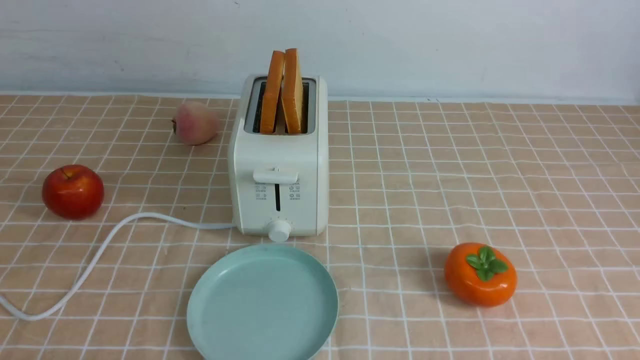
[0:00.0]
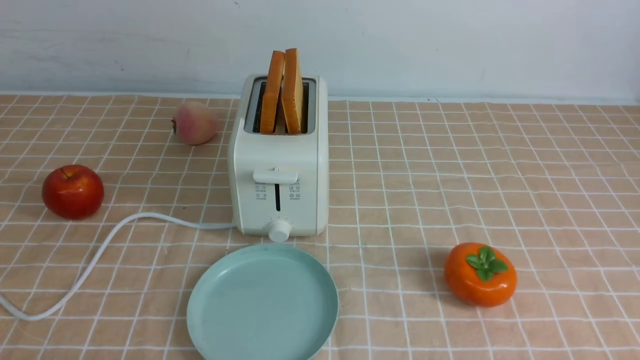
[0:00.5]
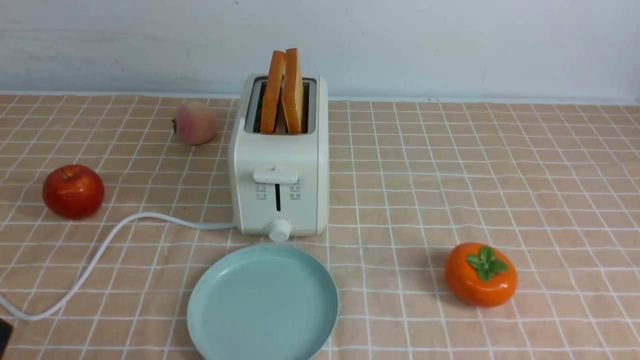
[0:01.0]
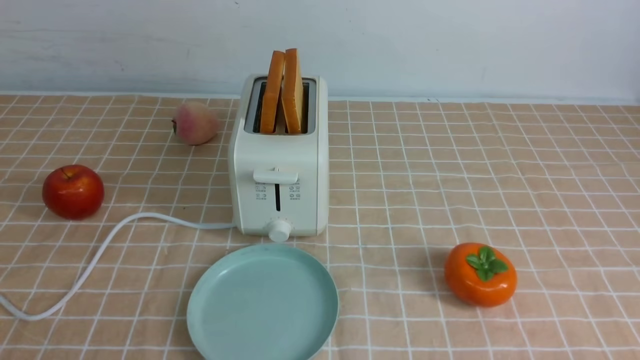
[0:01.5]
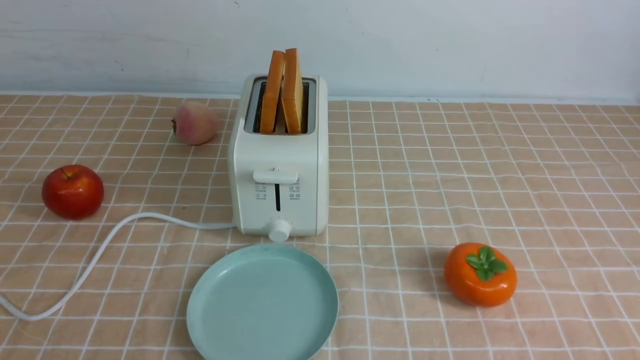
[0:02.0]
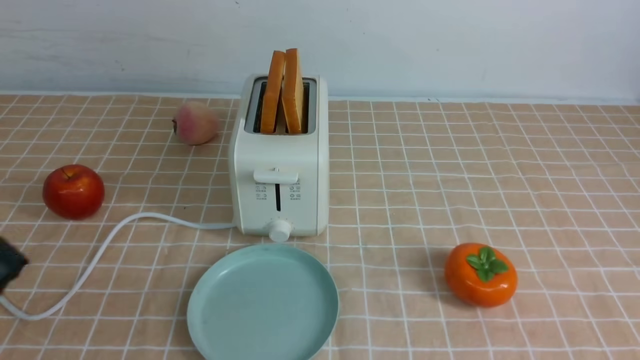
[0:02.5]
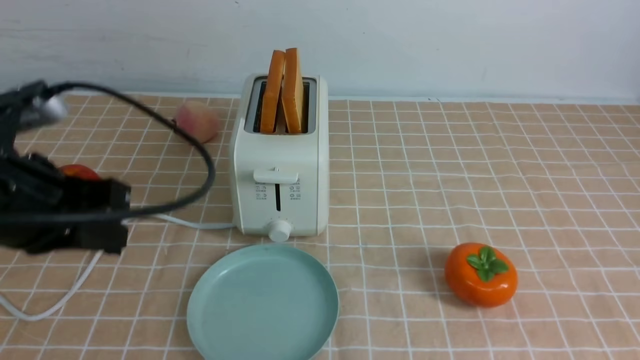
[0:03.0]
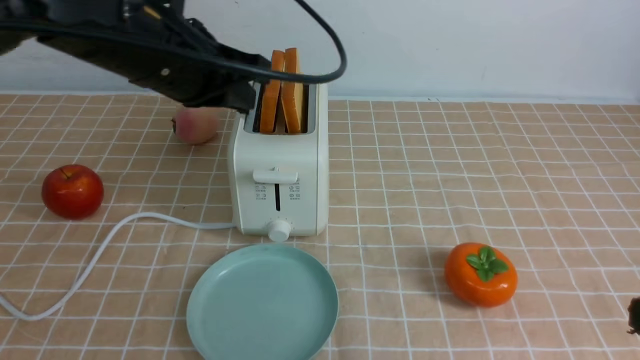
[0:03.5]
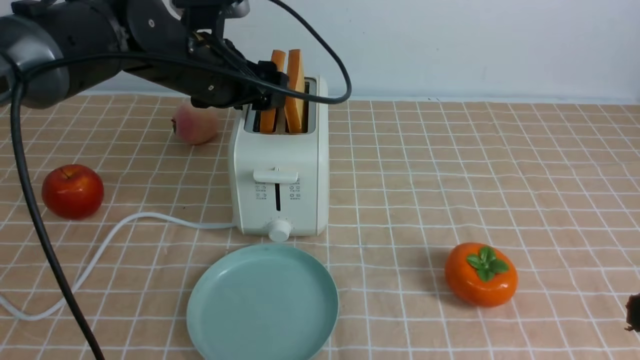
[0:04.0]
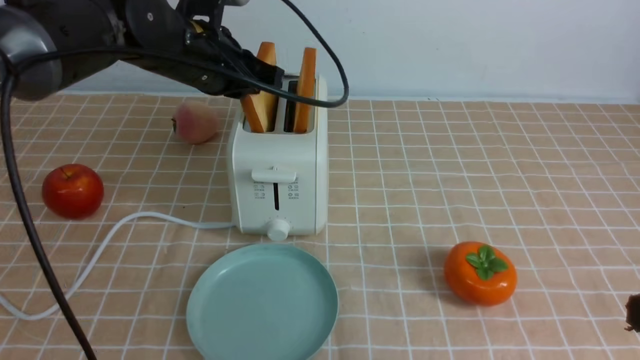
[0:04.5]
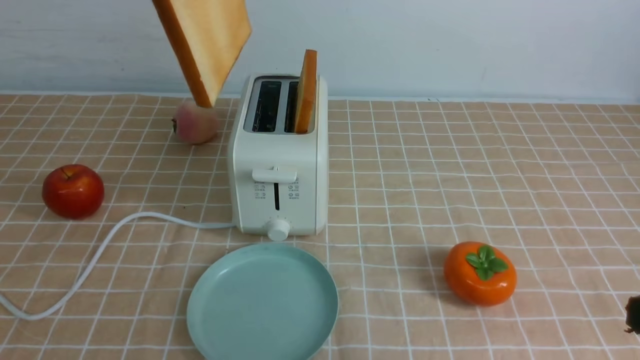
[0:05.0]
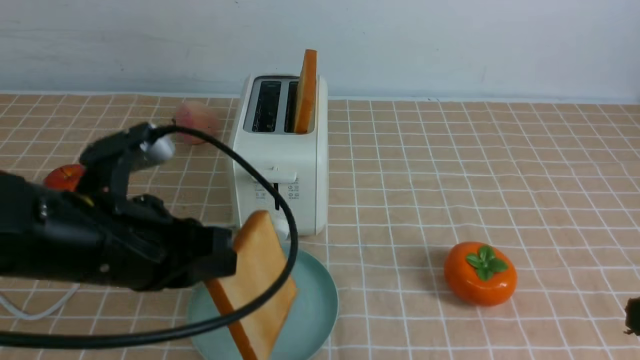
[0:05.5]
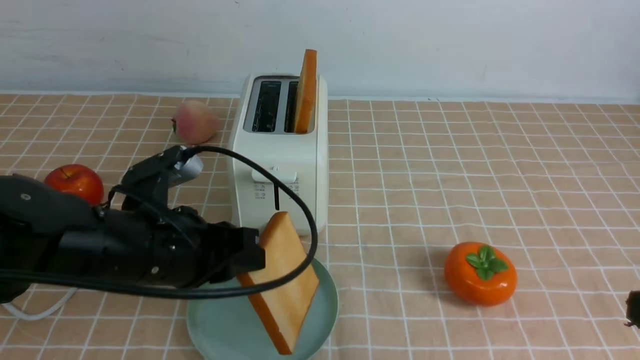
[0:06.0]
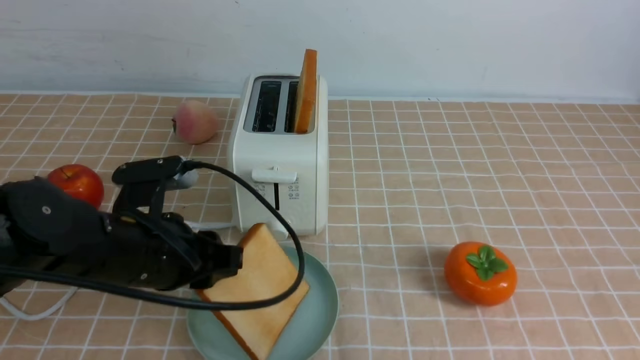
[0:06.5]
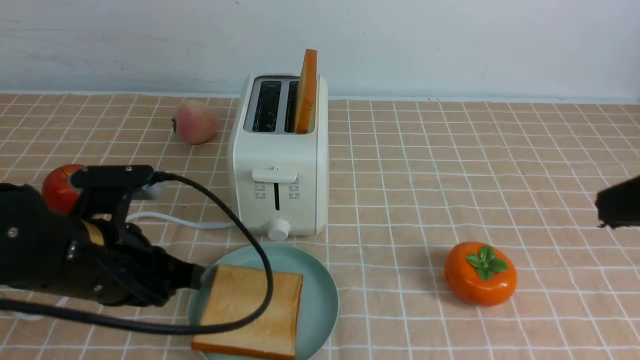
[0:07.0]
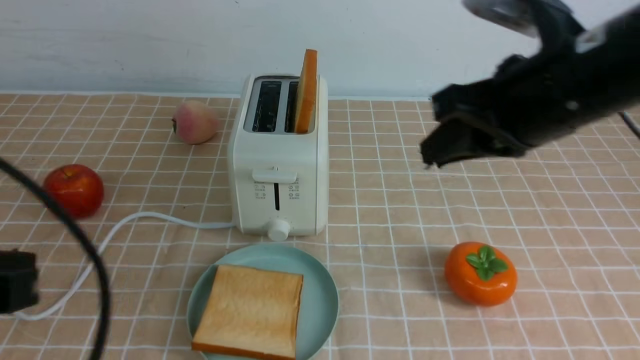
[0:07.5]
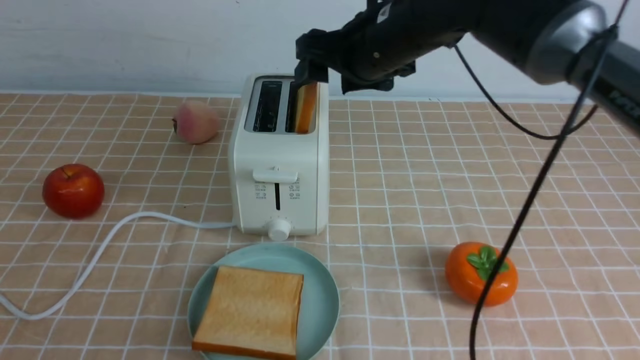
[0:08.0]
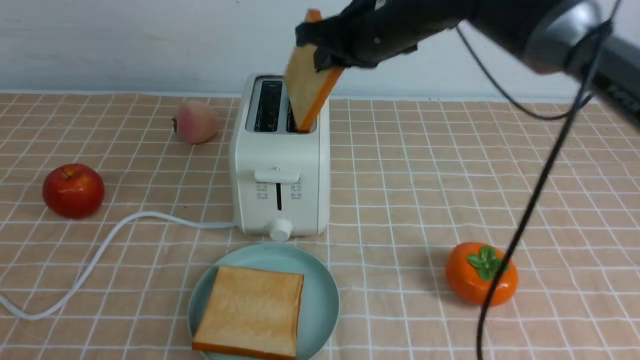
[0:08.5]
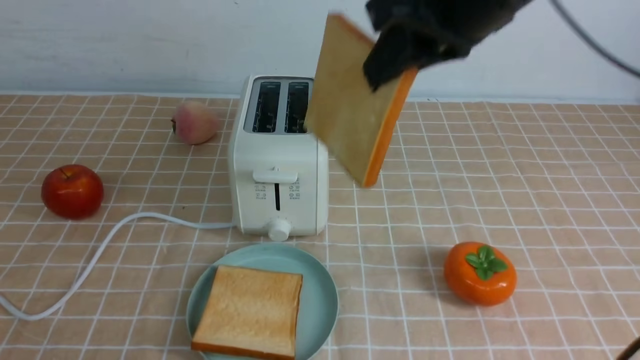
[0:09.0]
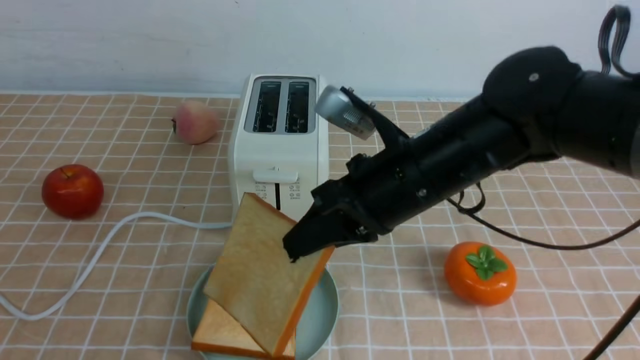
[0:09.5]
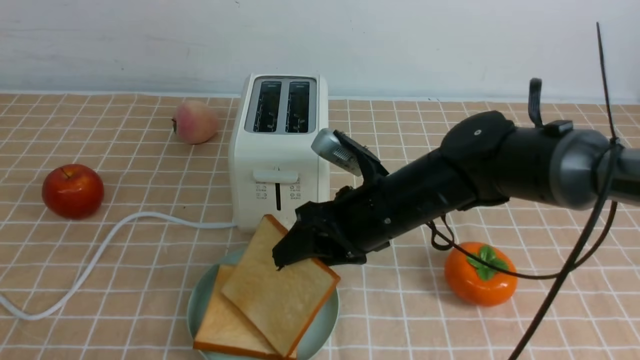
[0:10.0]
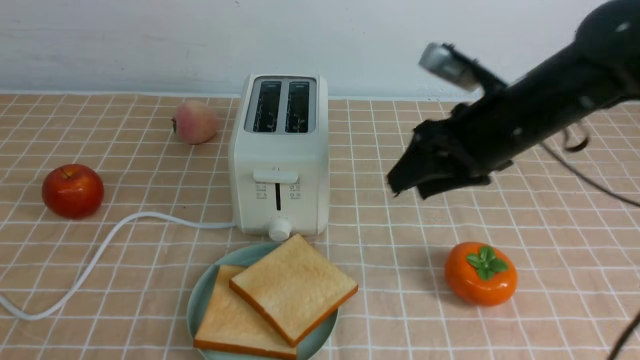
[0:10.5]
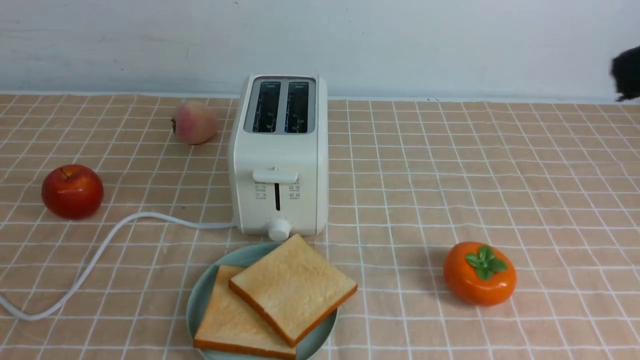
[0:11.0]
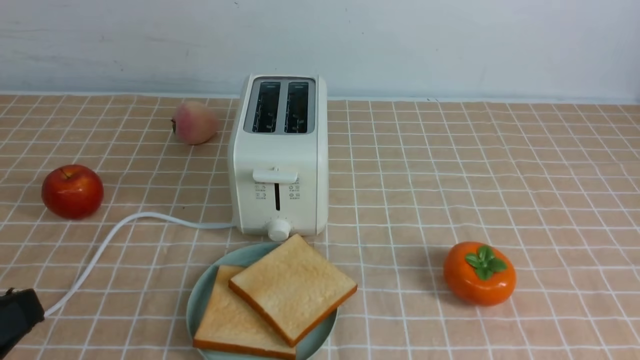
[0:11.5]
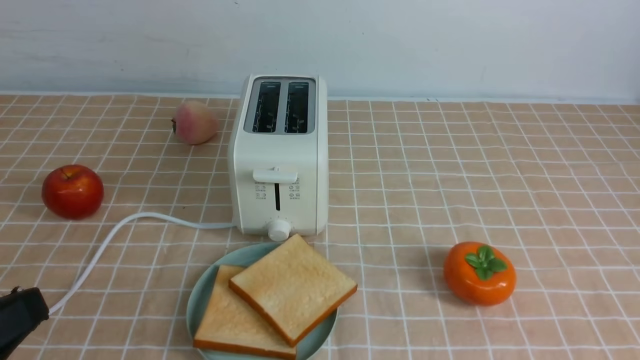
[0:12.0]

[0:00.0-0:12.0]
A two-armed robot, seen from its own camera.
Task of the whole recording: take toasted bread from bread machine on light coffee tablecloth place on plate.
Step, 0.0 to 4.5 s: use the left arm to take out a slice of bread.
Step, 5.0 to 7.0 s: use the left arm to put a slice of bread into the empty plate.
Step, 7.5 to 8.5 s: use the right arm to take out a slice of bread.
Step, 9.0 to 10.0 s: use the right arm to put a slice of bread into the plate.
2.0 to 4.0 s: The right gripper is displaced upward and forward by about 15 cm, and closes up. Meanwhile the left gripper moves forward and to the right, roughly 40 cm, and opens up.
4.0 to 6.0 s: The left gripper moves backward and downward, roughly 20 cm, and closes its fingers.
6.0 to 8.0 s: The right gripper shifts about 40 cm forward and to the left, and opens, while the left gripper goes approximately 25 cm backward, to the left and upward, and closes its fingers.
8.0 to 10.0 s: The right gripper goes approximately 15 cm downward and backward, and closes, then reopens.
10.0 to 12.0 s: The left gripper moves approximately 5 cm, while the right gripper travels backward and to the right by approximately 40 cm, and closes its fingers.

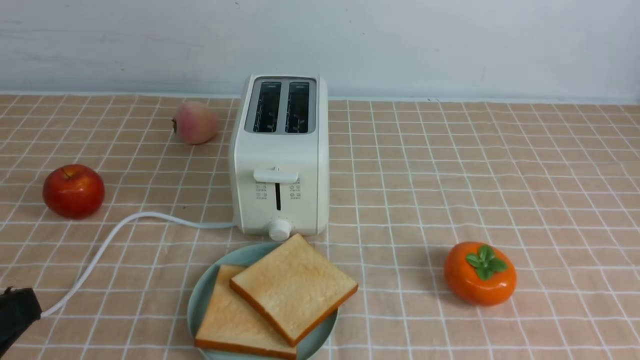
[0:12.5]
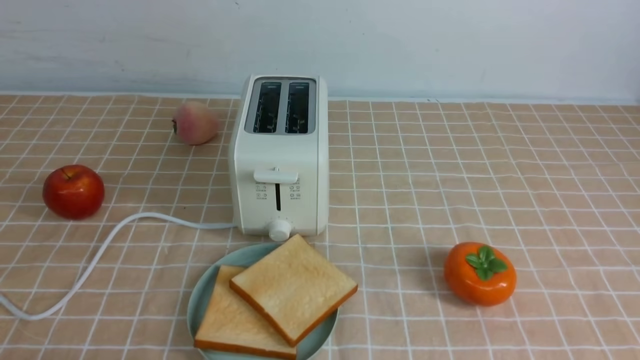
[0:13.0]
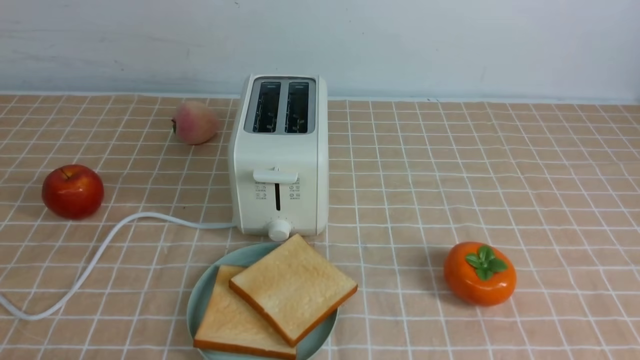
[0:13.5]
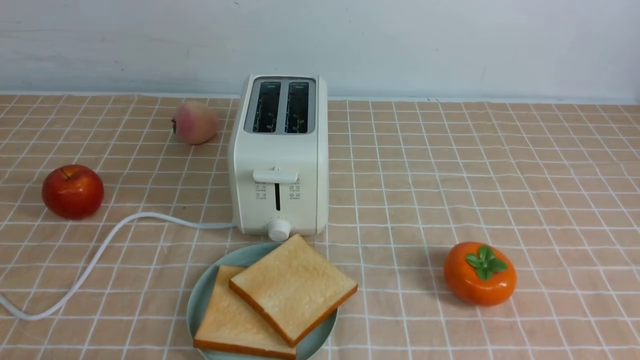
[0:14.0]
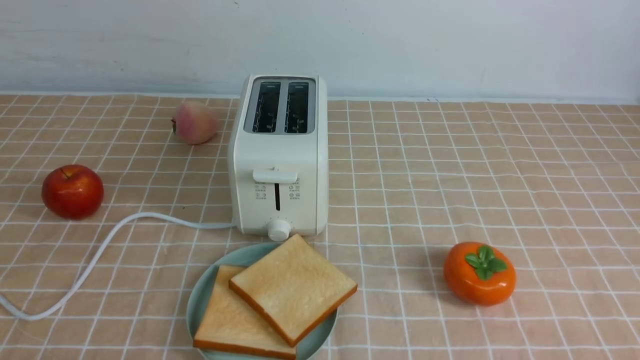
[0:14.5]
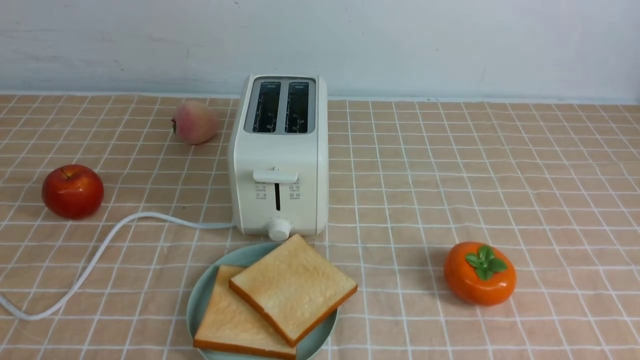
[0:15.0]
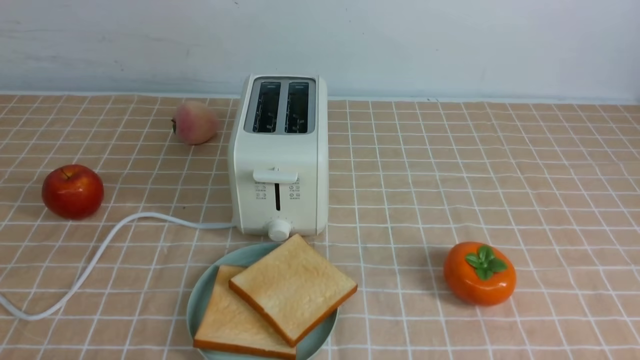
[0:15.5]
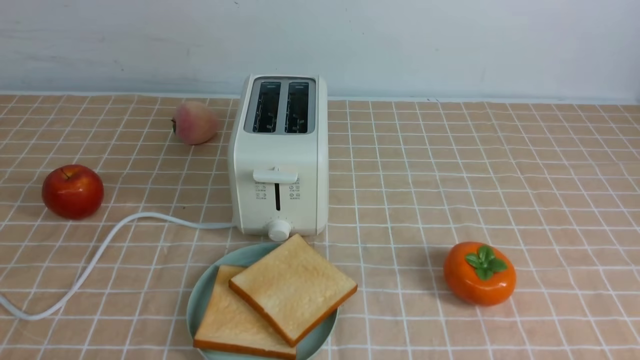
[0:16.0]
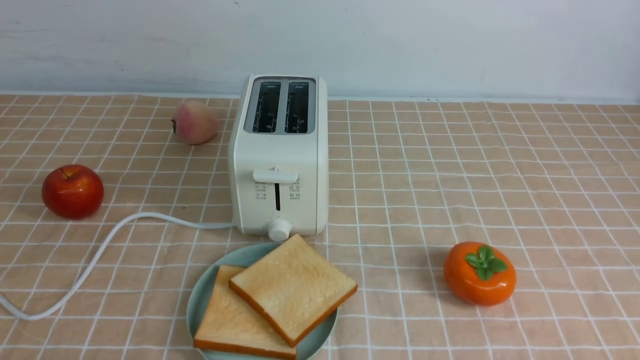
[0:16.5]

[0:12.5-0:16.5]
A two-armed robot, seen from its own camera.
Task of the whole recording: take toasted bread from bread machine on light coffee tablecloth place on plate.
12.5 to 14.5 s: The left gripper is displaced downward by some 10 cm.

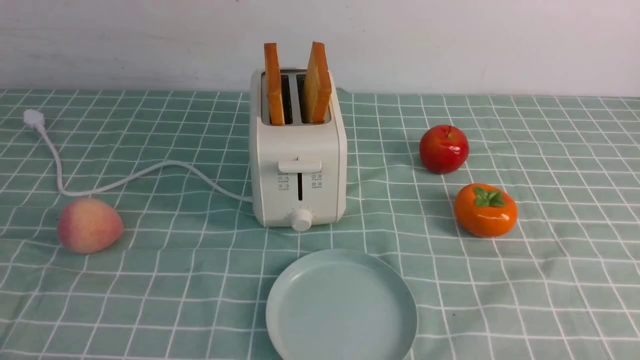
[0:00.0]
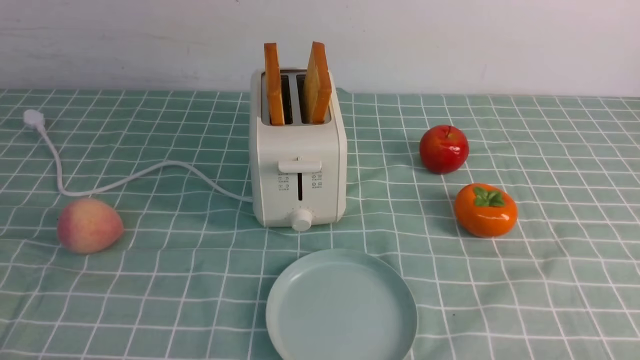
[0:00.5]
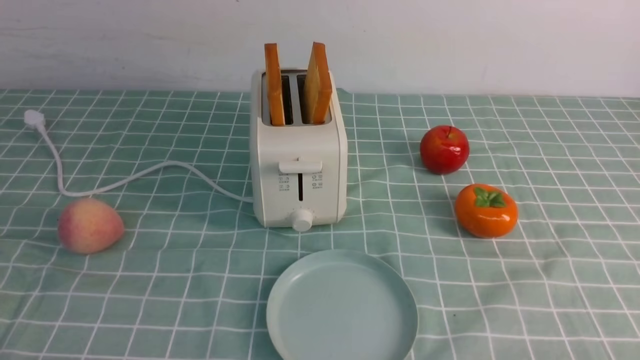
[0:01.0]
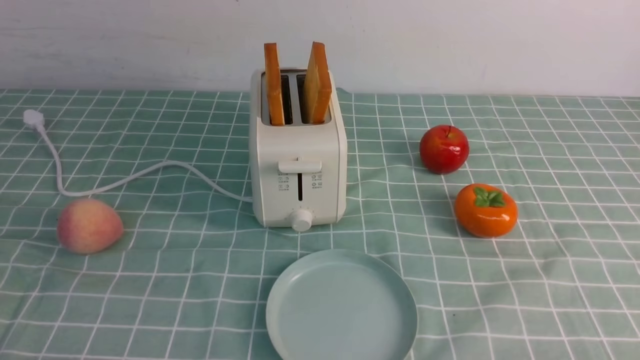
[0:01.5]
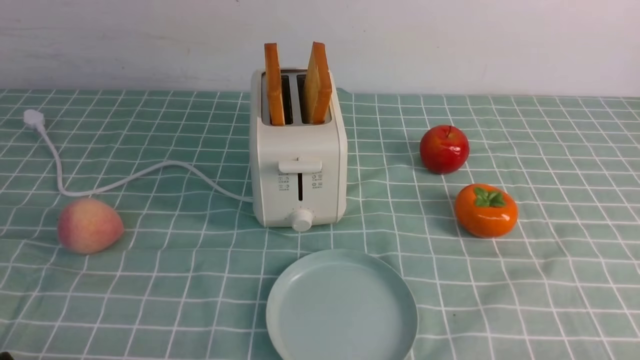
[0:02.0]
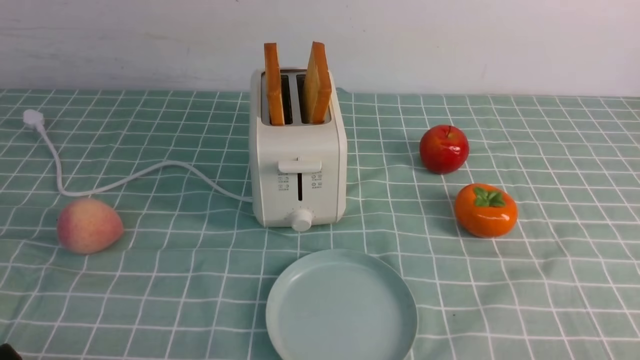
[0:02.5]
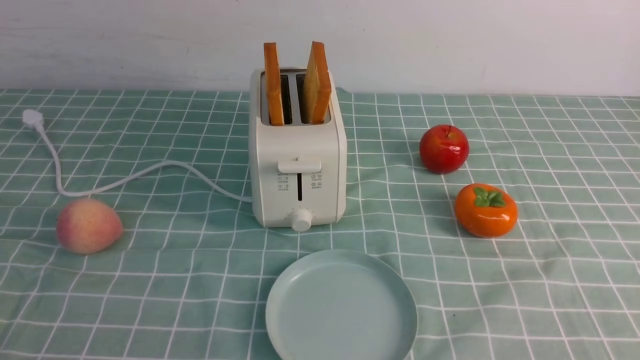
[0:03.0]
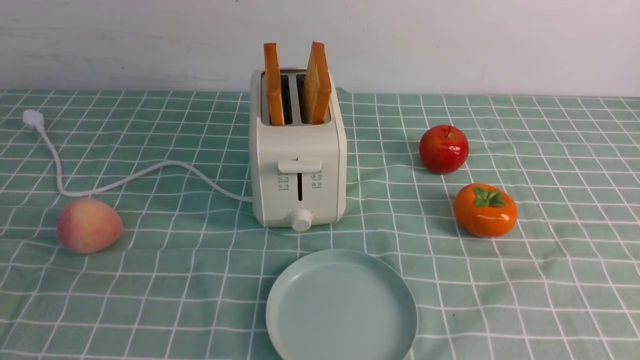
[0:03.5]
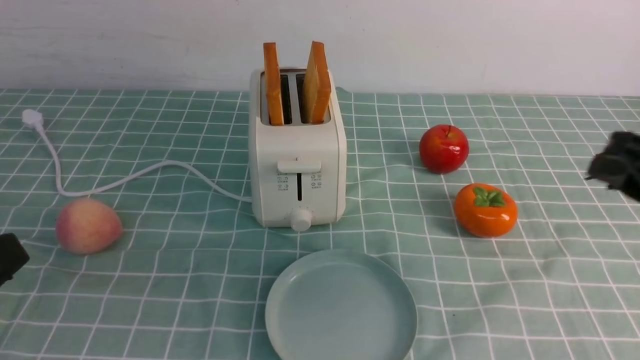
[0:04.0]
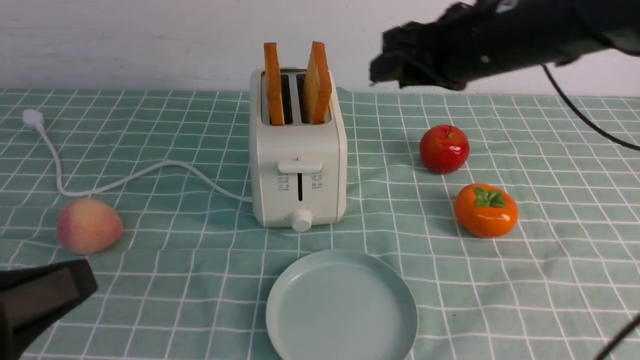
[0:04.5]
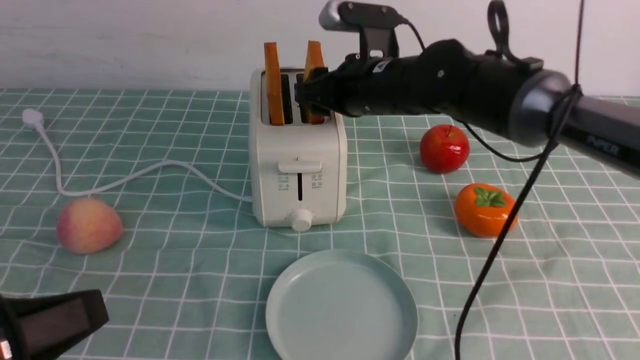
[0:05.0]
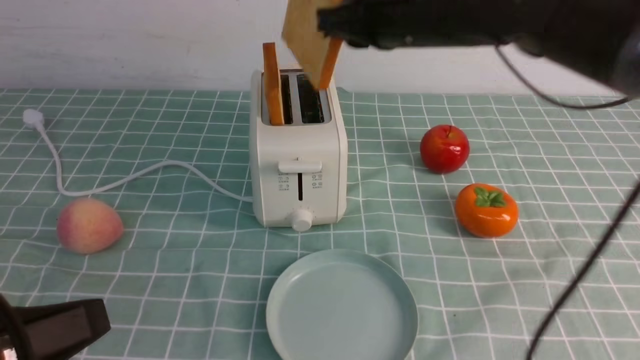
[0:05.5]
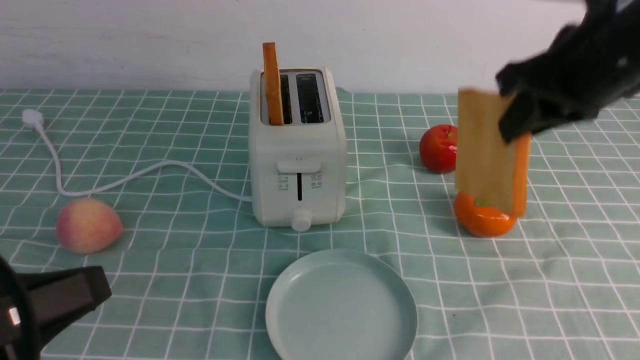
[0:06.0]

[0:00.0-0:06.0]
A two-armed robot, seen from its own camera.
Task of the whole recording: take toasted bread from bread machine on blue coffee table place on plate.
Step, 0.0 to 5.5 s: use the right arm to take out a slice of bread.
2.0 to 4.0 s: The right gripper goes about 25 cm forward and upward; the left gripper goes some 15 cm upward.
4.0 to 6.0 s: The right gripper moves forward and to the left, approximately 10 cm.
